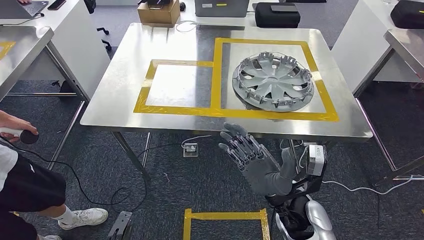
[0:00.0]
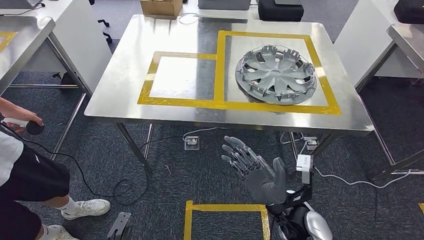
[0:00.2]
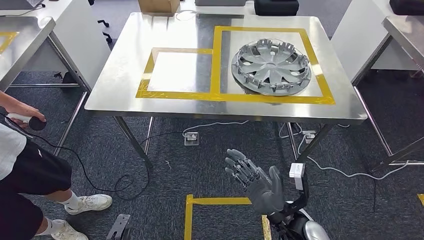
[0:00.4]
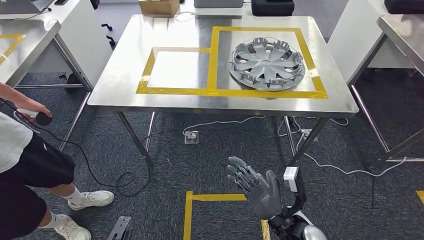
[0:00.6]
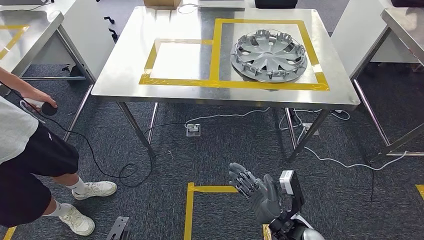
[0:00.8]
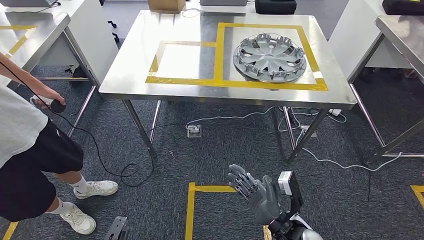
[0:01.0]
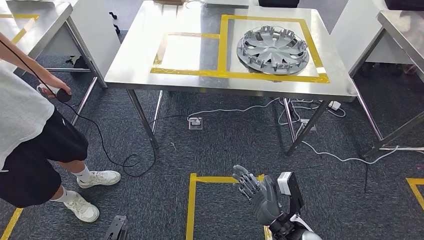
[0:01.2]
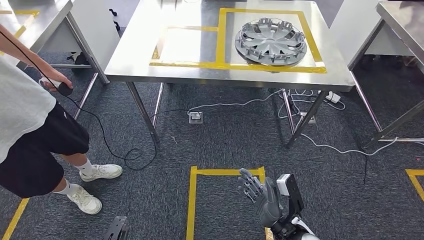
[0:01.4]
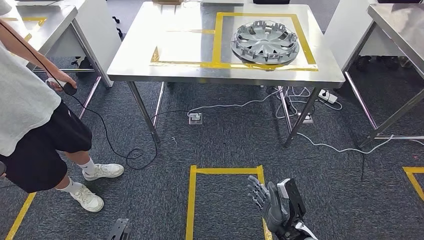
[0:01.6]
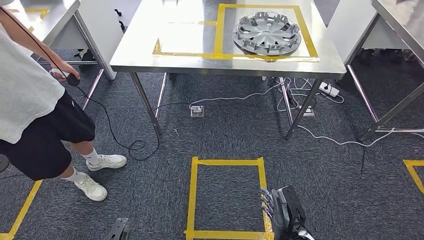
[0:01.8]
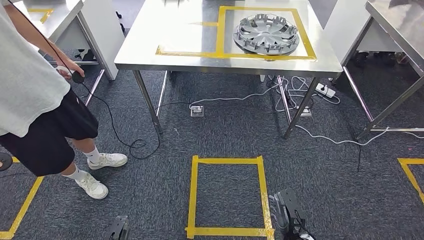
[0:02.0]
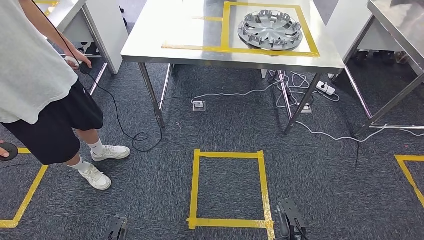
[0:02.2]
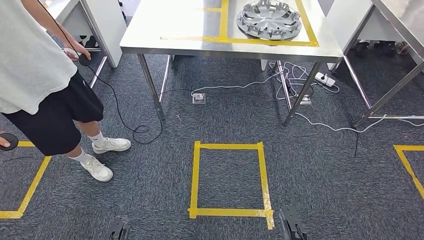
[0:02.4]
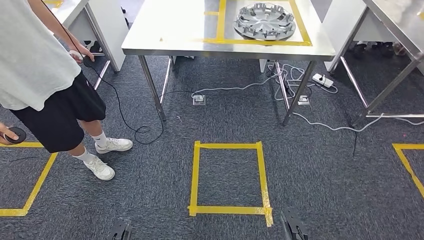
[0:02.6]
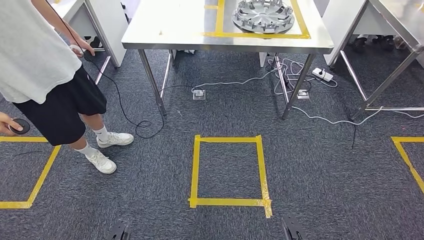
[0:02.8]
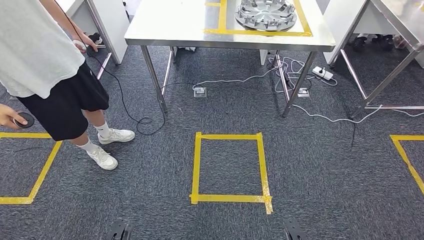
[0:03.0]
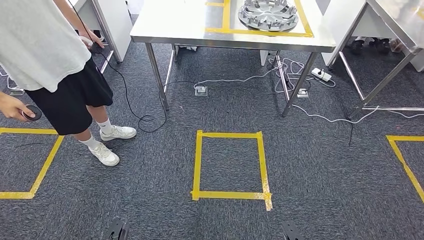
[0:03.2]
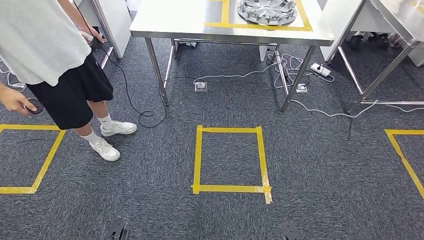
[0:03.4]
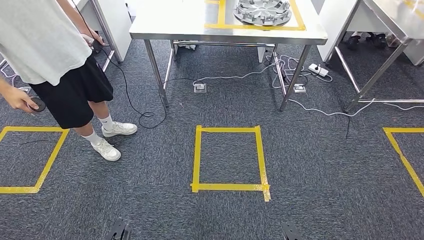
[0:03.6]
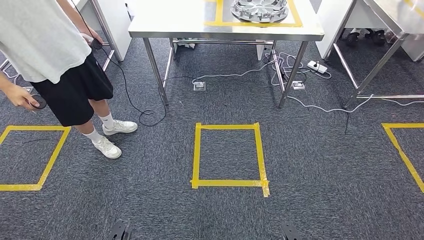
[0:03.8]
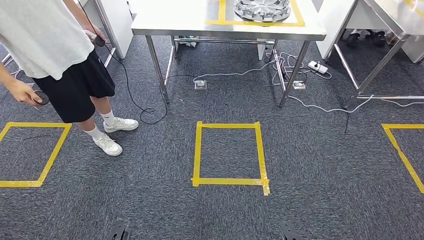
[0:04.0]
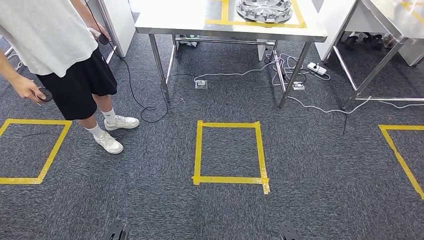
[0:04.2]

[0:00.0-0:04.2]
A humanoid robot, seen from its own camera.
Step, 0:00.2 to 0:04.2: Return to the initial position at the workbench.
